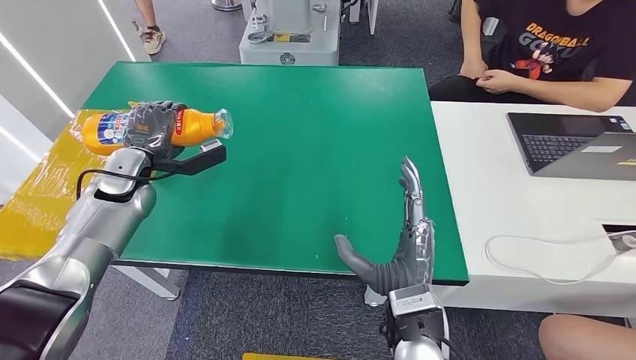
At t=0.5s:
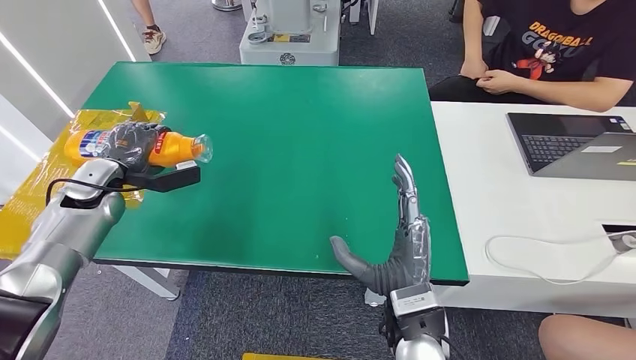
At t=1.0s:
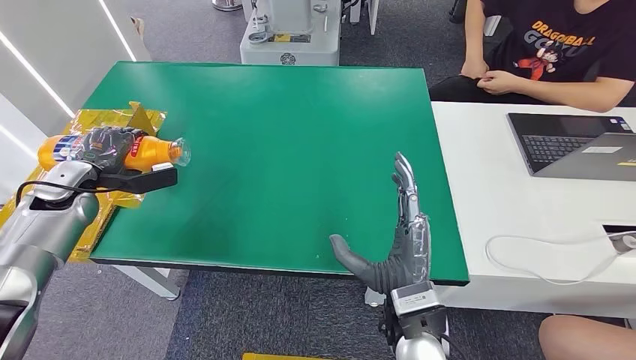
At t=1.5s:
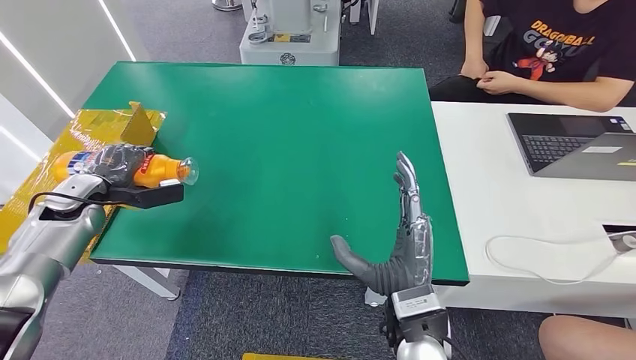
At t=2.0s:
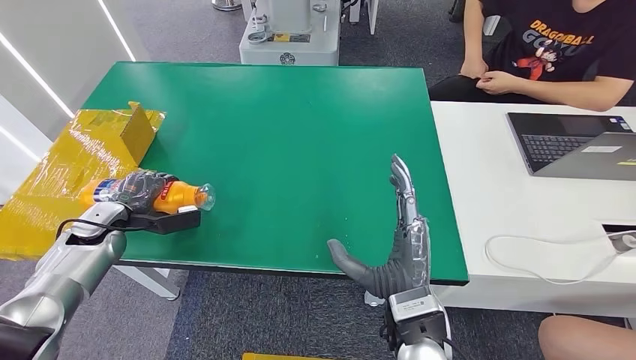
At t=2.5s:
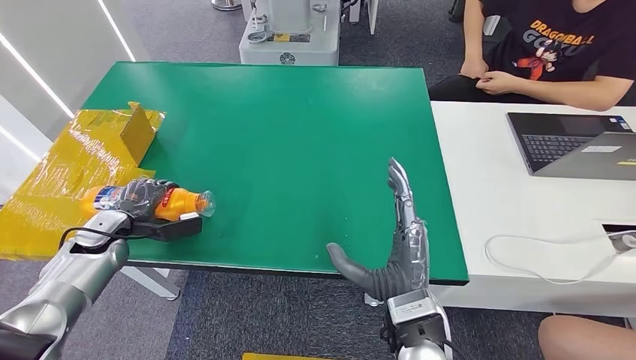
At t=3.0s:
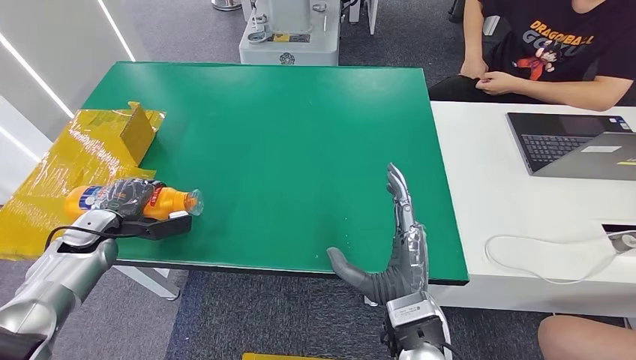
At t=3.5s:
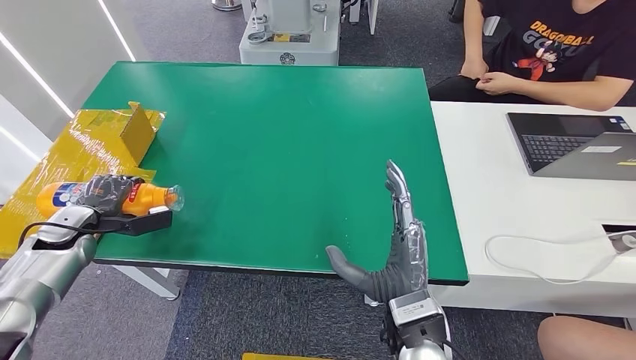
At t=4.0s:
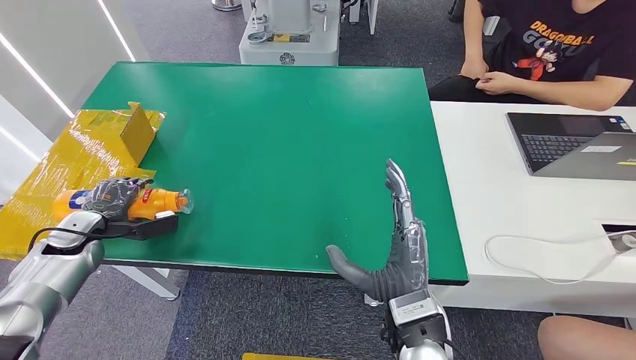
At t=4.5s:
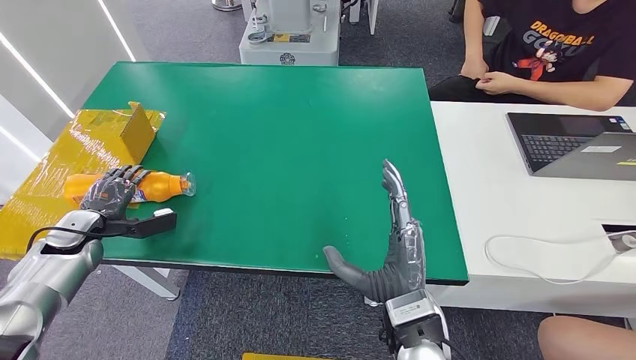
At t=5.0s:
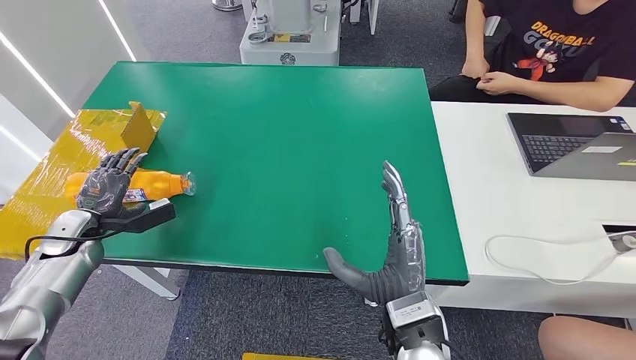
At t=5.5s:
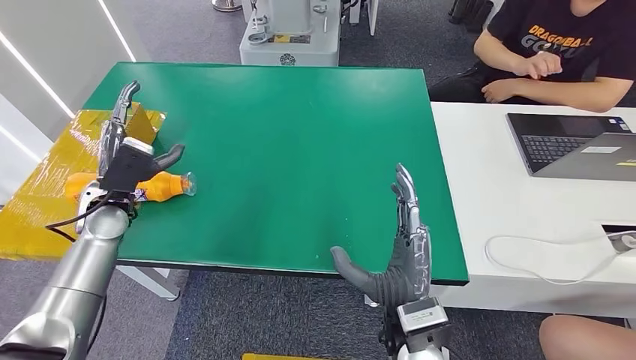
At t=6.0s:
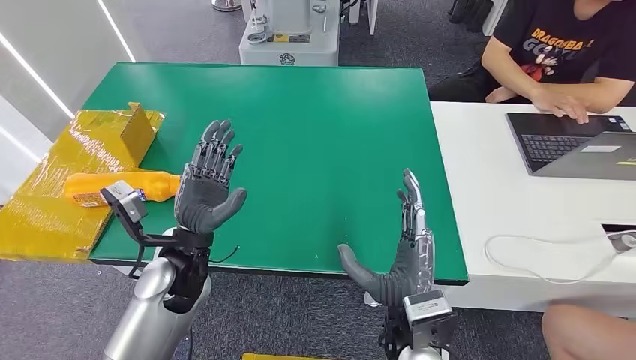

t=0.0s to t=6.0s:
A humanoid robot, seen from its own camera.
Step, t=0.0s to t=5.5s: Turn the bottle to the front side.
t=0.0s to t=2.0s: The left hand is displaced downward, to the left and backward by roughly 15 cm.
t=2.0s to t=4.0s: The hands stay close to where they were, moving slightly.
t=4.0s to t=6.0s: The left hand goes about 30 cm to the right.
